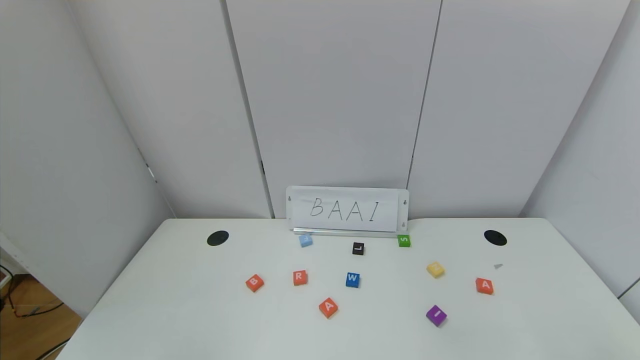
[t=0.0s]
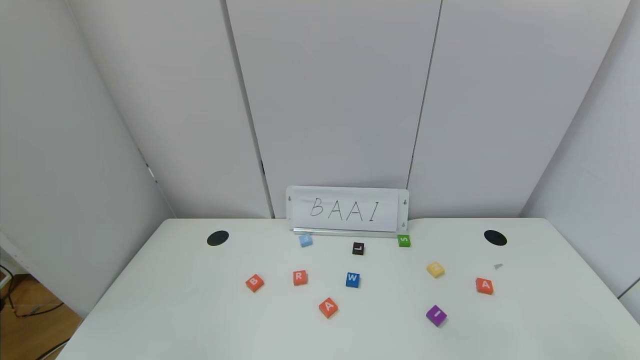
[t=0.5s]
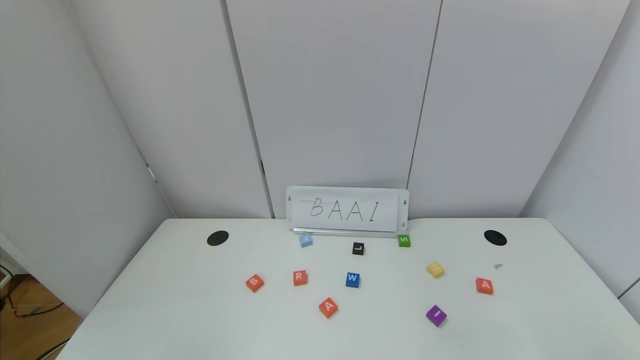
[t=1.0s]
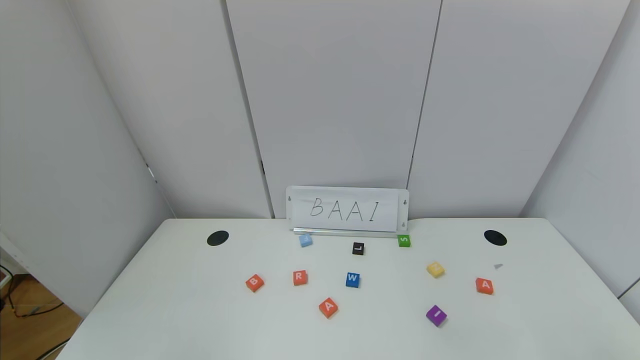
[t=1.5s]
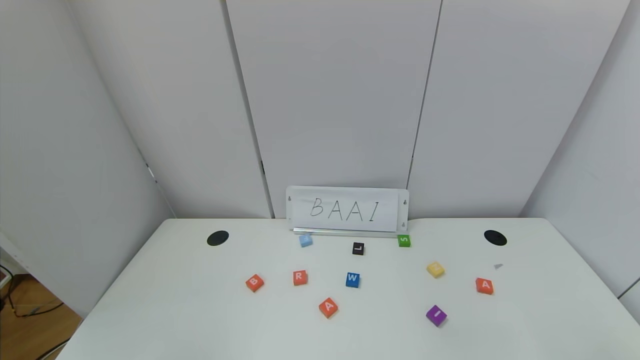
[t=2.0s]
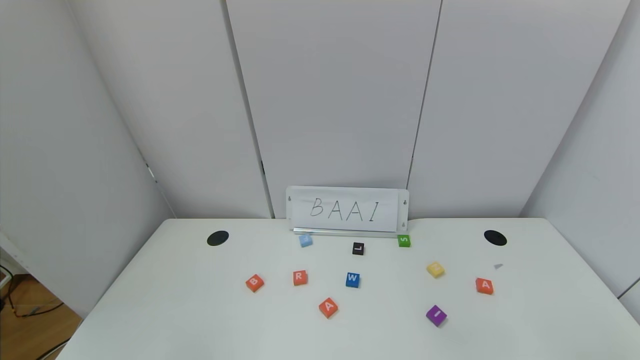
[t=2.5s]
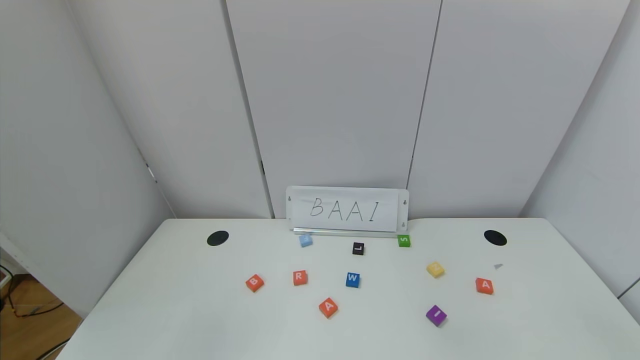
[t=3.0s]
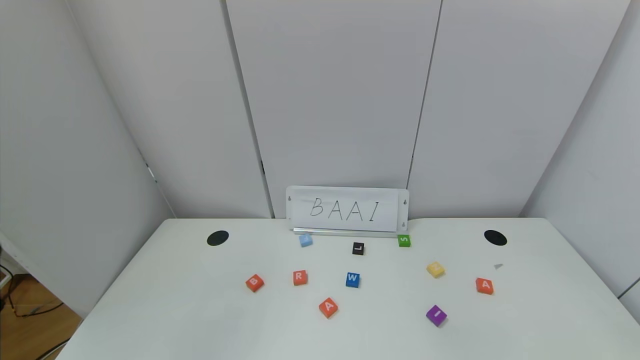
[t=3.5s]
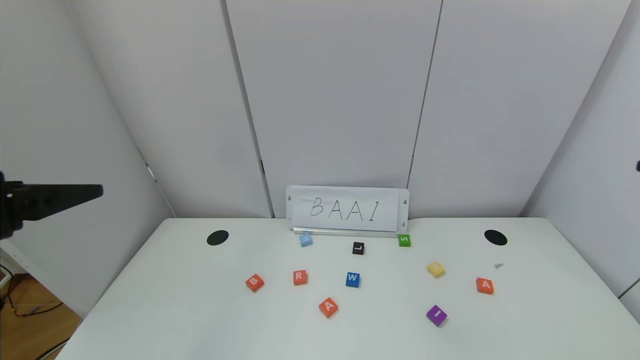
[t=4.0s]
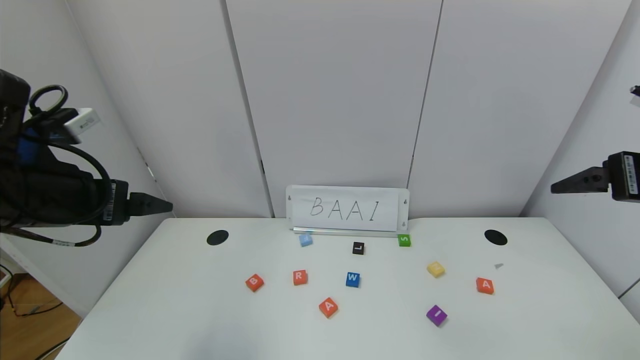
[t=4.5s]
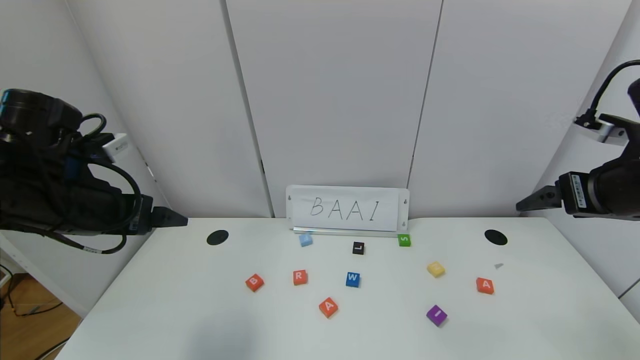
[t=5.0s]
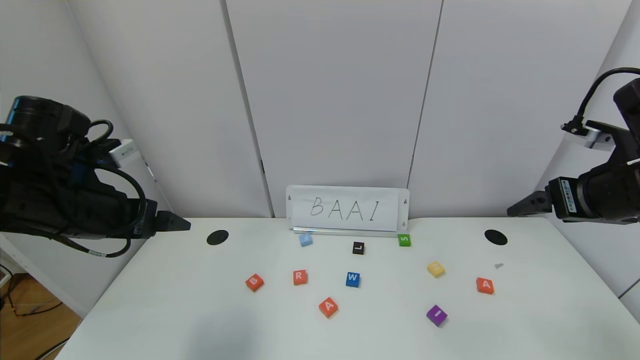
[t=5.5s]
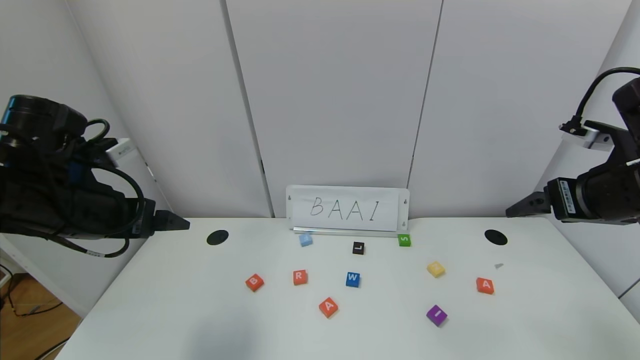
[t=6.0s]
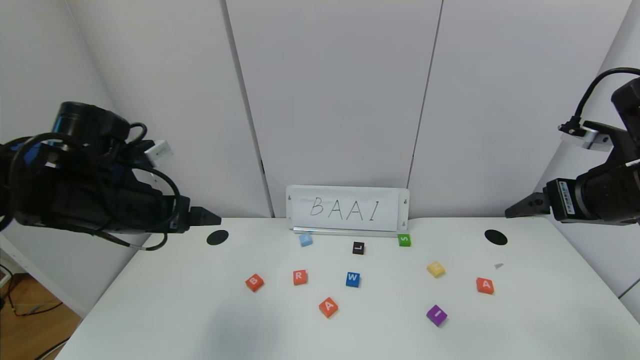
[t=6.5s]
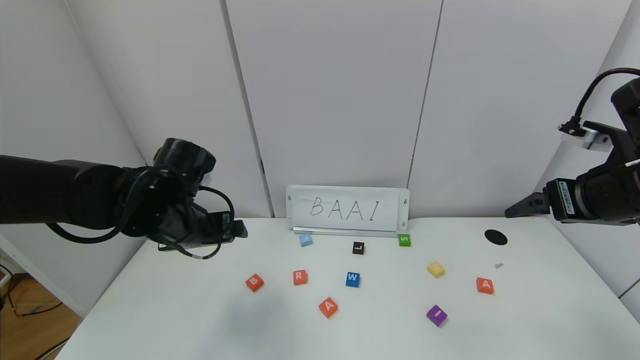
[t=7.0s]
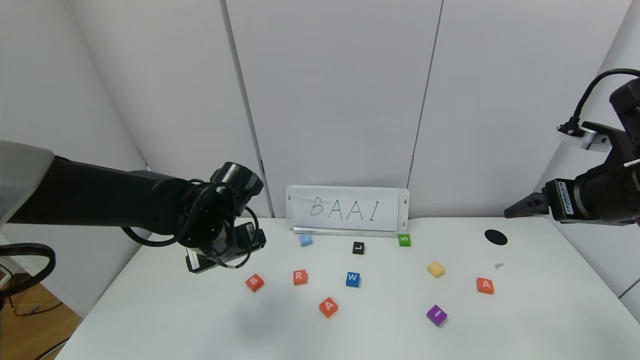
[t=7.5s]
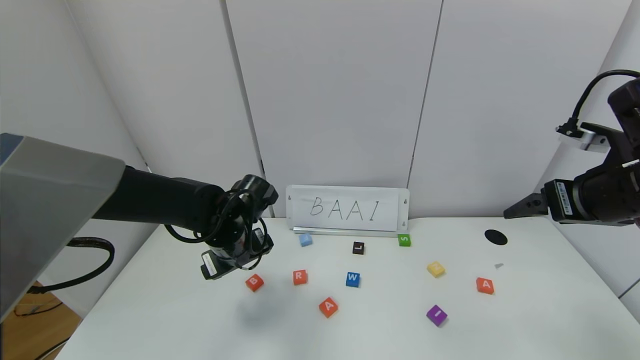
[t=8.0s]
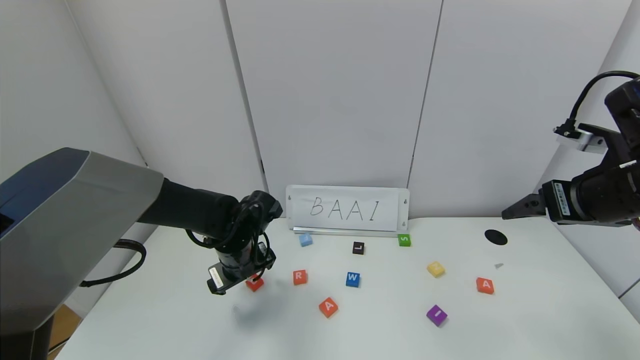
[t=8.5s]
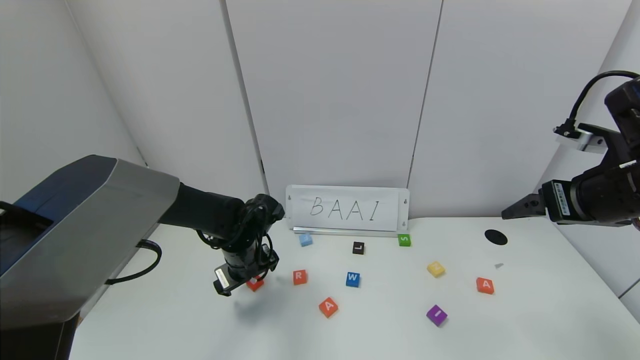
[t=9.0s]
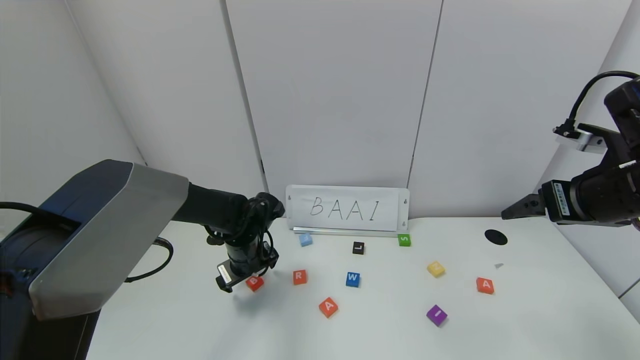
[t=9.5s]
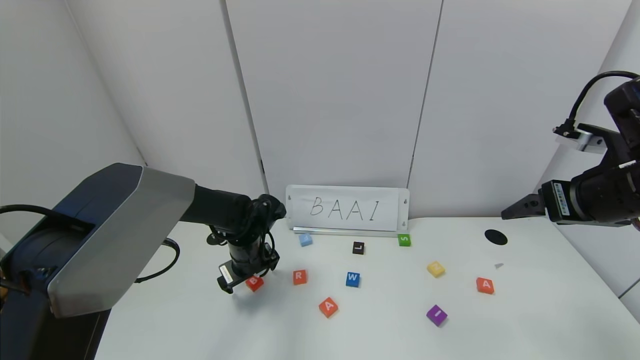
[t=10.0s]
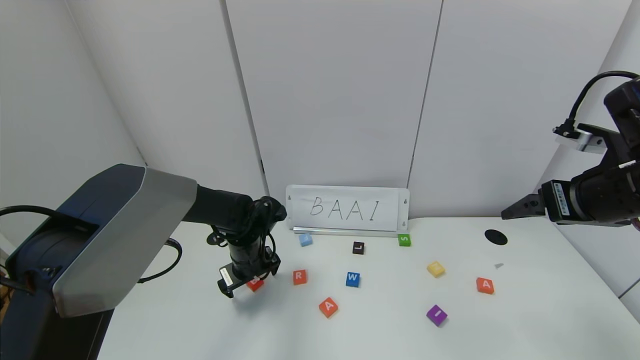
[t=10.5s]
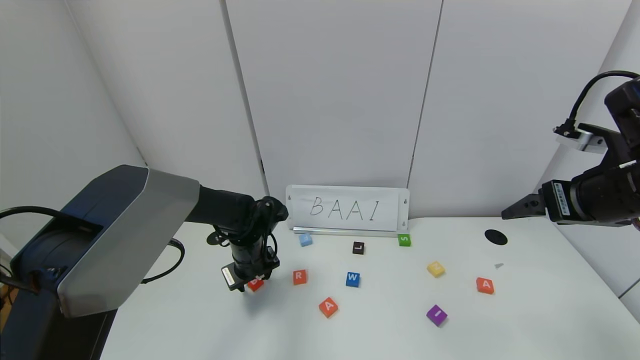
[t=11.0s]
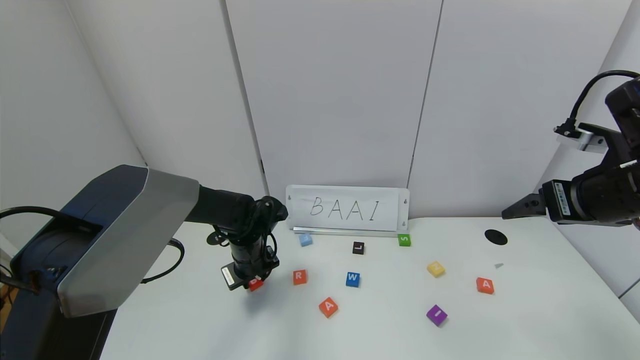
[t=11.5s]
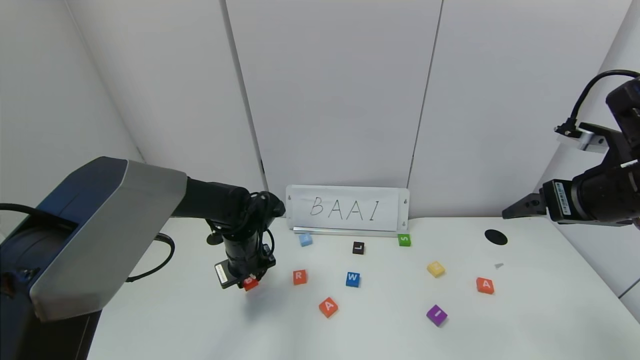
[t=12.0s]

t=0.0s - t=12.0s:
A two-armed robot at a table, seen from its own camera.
Task of the whole recording: use the gripper to find blocks with the letters b, a, a, and i on the table and arrange them into BAAI, then find r and N and turn the arranged baai into brian.
t=0.0s - t=2.0s: Both grippers stay put.
t=2.0s - t=4.0s: The left gripper goes about 30 cm upward and forward.
t=4.0s - t=6.0s: The two grippers go about 15 cm forward and downward.
t=6.0s - t=8.0s: The left gripper moves to the right, downward and forward, approximately 20 cm.
t=8.0s - t=10.0s: The left gripper is displaced downward by approximately 5 cm.
t=10.0s - t=12.0s: The left gripper closes up.

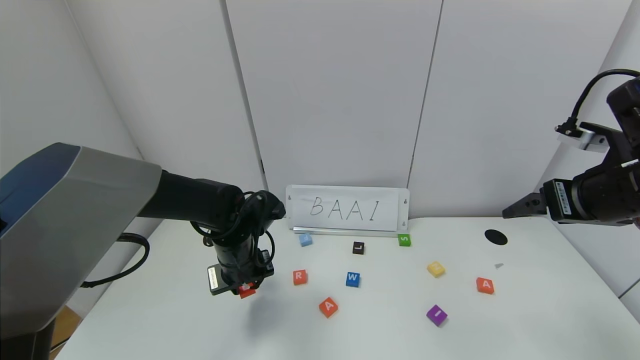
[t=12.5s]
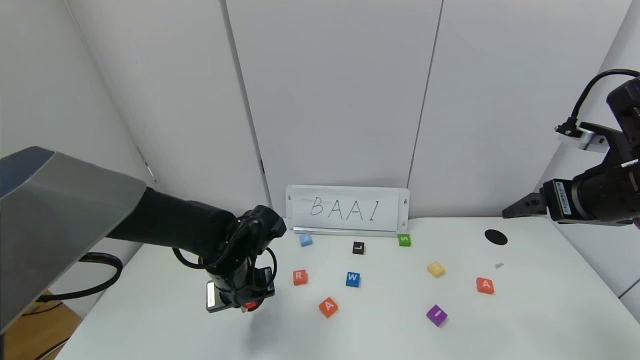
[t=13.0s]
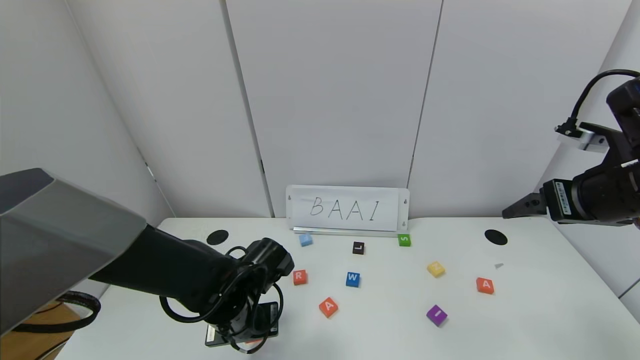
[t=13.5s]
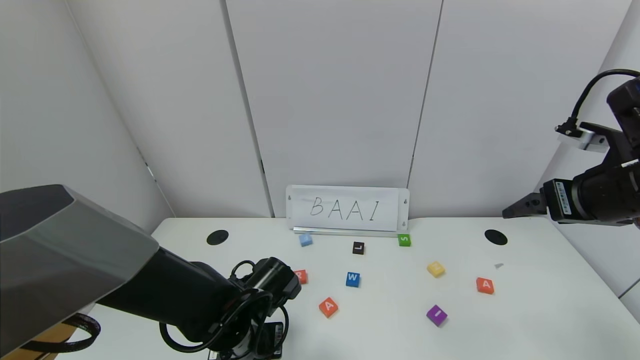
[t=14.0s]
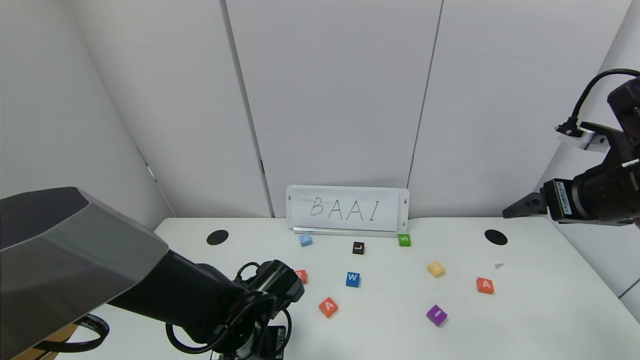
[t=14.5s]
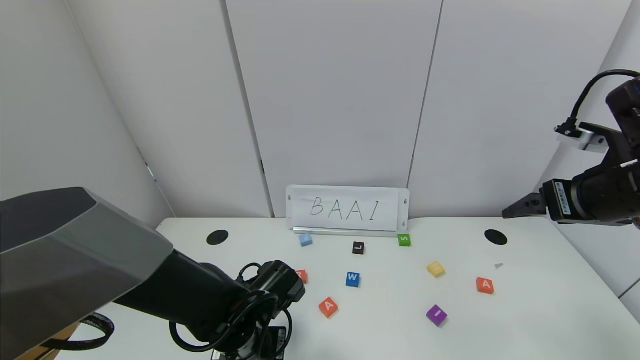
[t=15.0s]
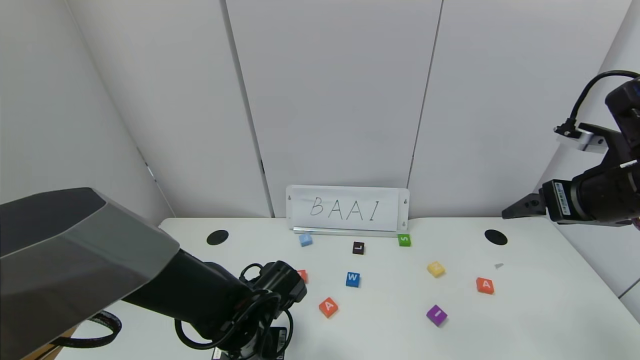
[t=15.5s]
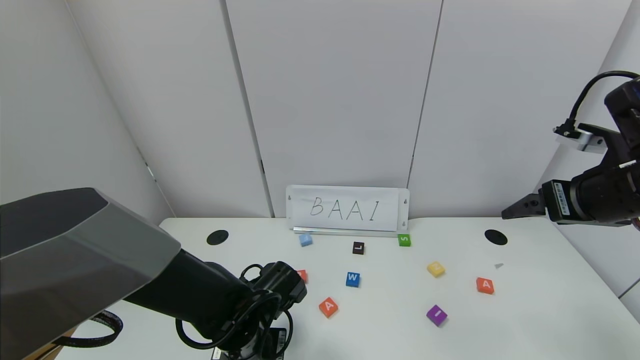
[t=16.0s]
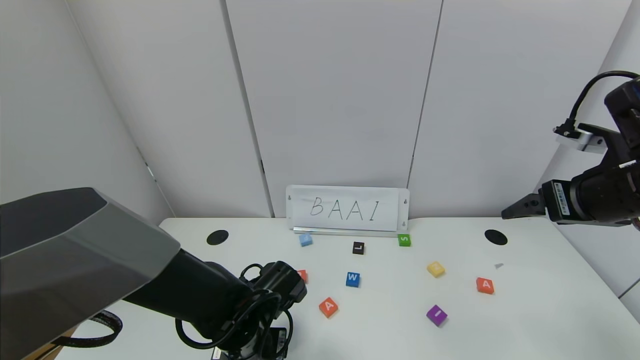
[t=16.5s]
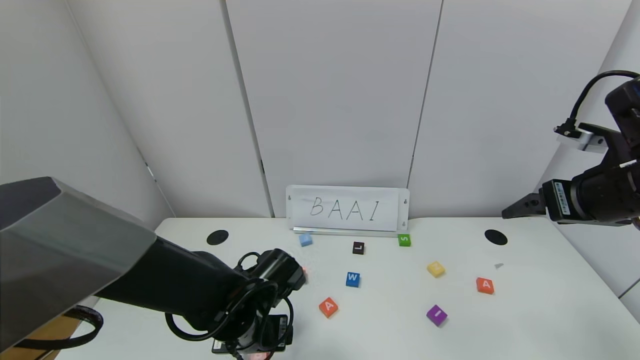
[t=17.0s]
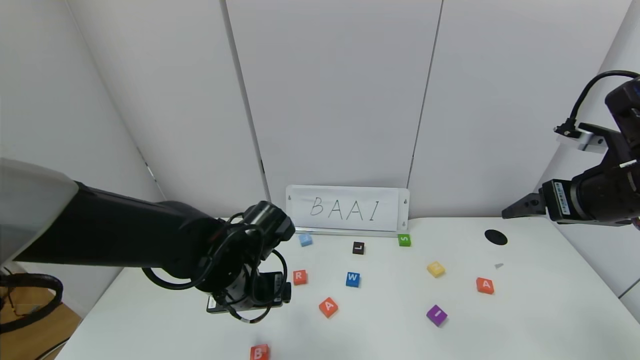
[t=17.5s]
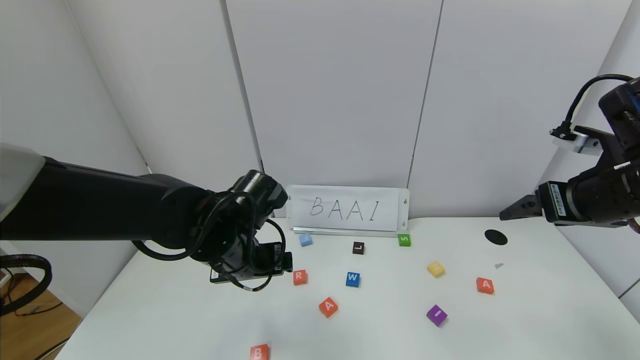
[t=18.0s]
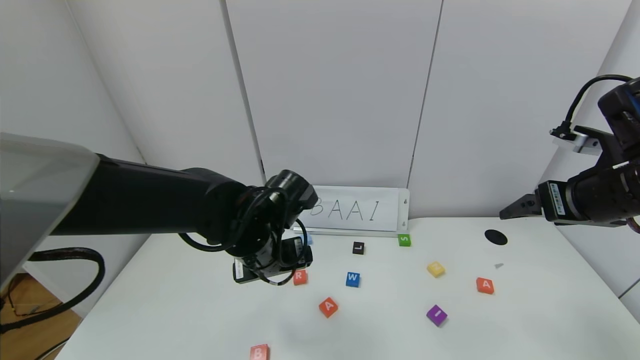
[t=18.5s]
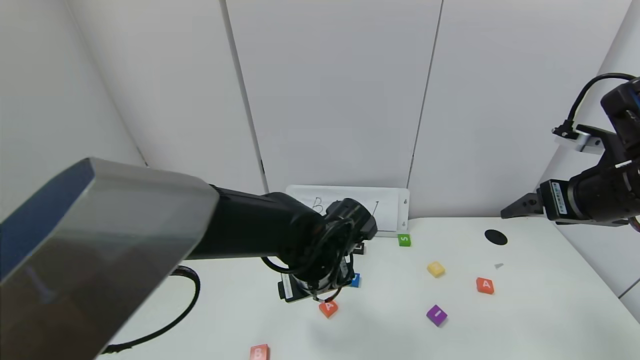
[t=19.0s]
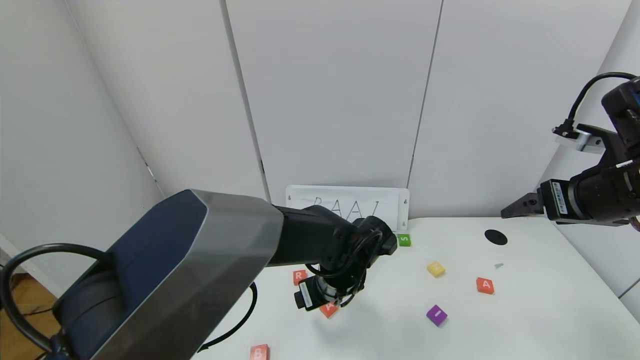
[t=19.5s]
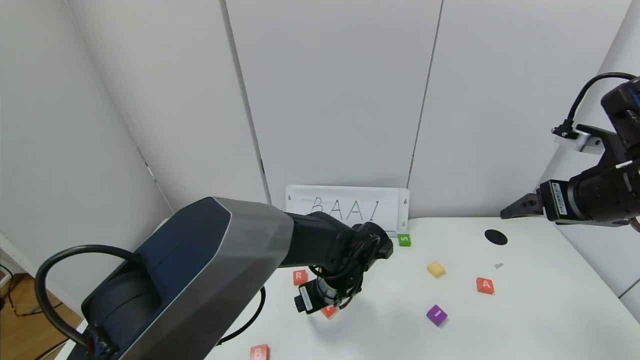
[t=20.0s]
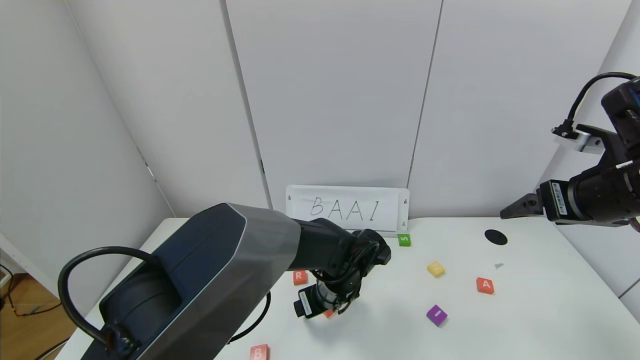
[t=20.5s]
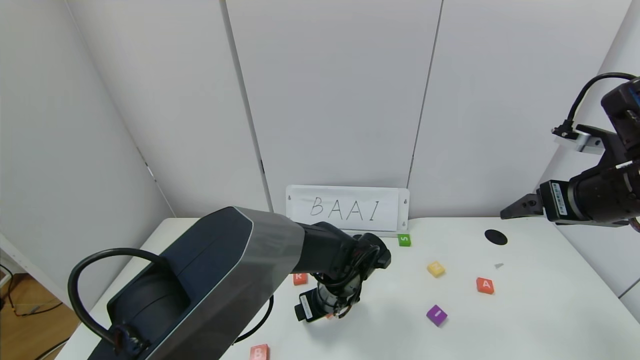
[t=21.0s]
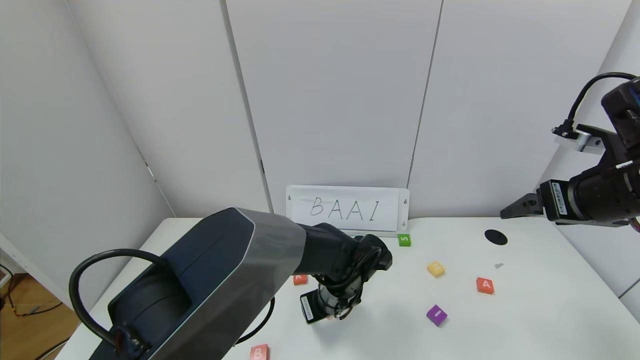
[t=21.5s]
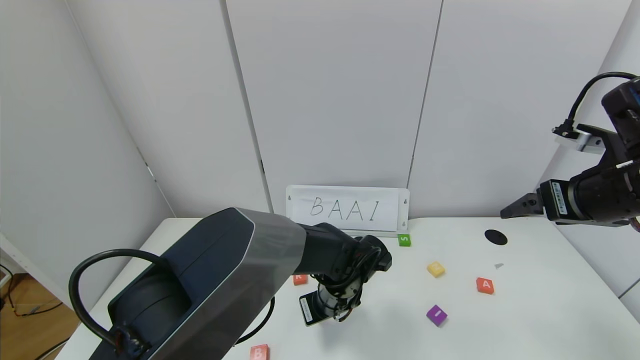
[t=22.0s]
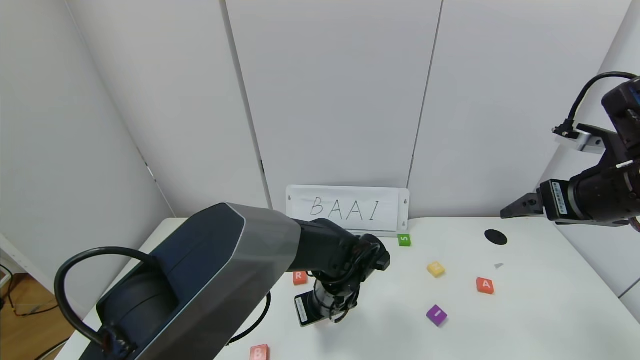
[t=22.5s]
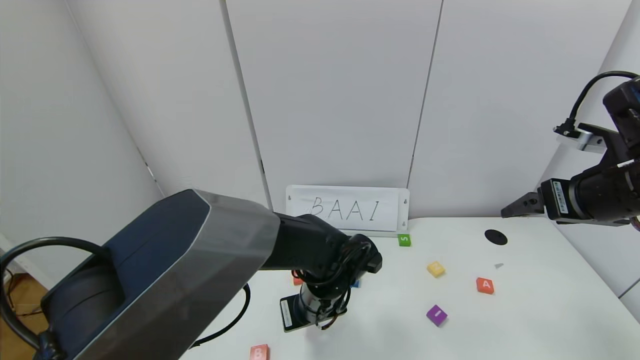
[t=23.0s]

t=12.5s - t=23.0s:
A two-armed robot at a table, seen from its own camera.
Task of the whole recording: use the gripper to find blocks with the letters b, a, a, and i on the table and arrange them into BAAI, then find r and N and turn the arranged baai into brian.
Step, t=12.5s - t=16.0s: Place the block B in the first location.
t=12.5s - t=14.5s: The left gripper travels backward and downward by about 10 cm.
t=14.5s - t=16.5s: The left gripper opens up.
t=16.5s - t=19.0s: The left gripper heads to the right and upward, covering roughly 15 cm.
t=19.0s - t=21.0s: The left gripper shifts some 10 cm downward.
t=21.0s - t=23.0s: The left gripper closes its fingers.
